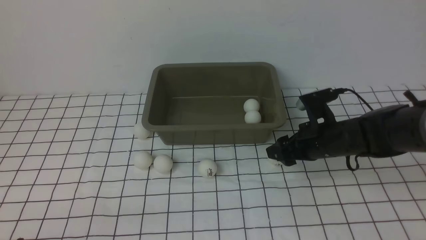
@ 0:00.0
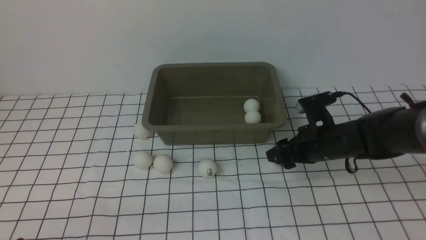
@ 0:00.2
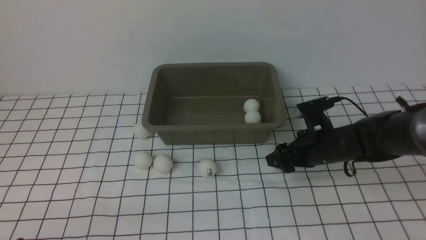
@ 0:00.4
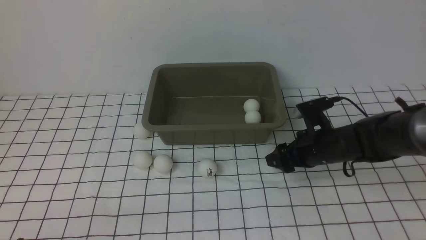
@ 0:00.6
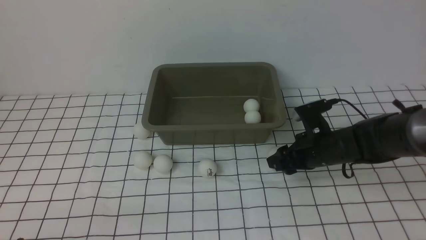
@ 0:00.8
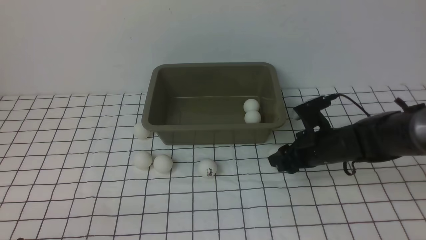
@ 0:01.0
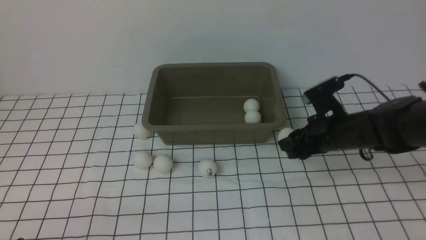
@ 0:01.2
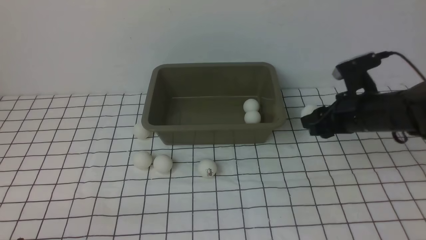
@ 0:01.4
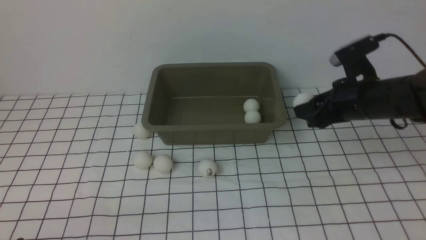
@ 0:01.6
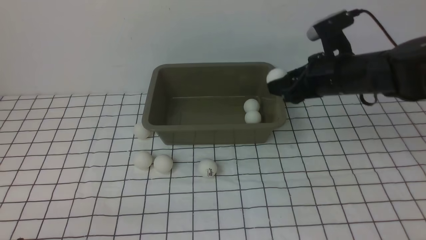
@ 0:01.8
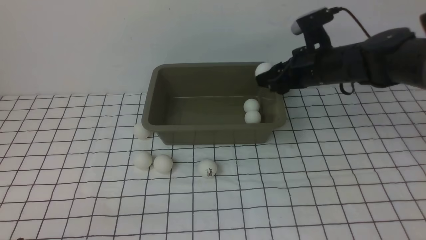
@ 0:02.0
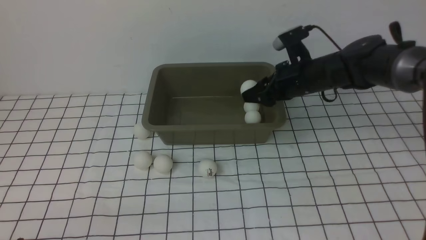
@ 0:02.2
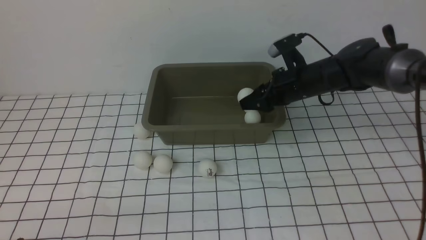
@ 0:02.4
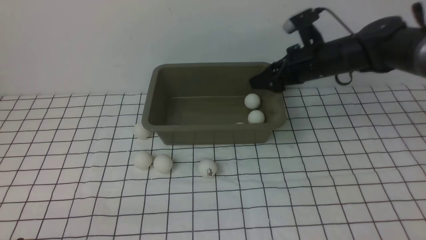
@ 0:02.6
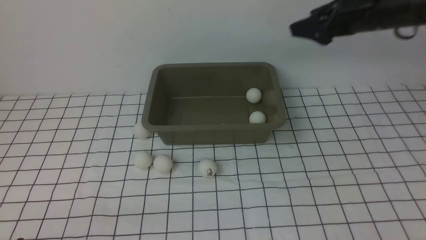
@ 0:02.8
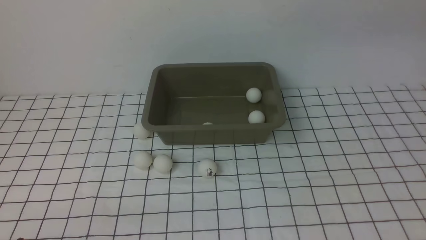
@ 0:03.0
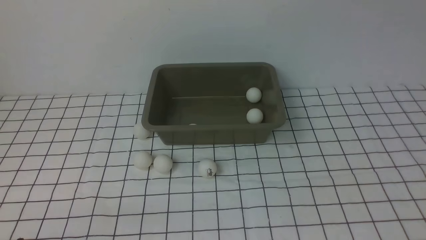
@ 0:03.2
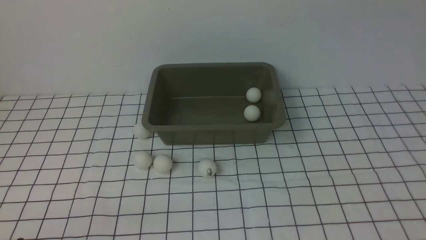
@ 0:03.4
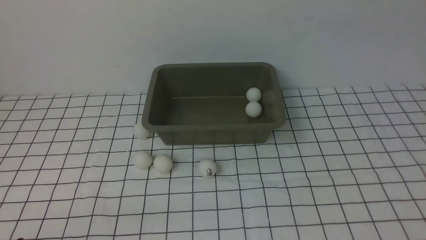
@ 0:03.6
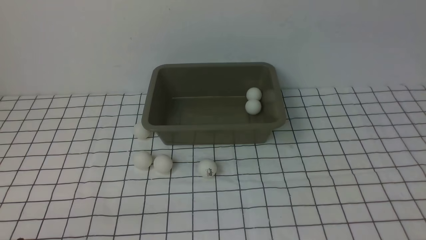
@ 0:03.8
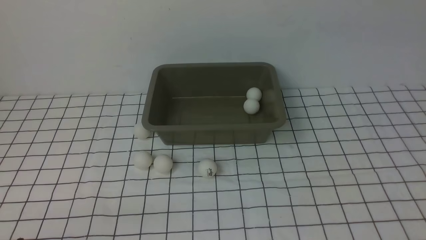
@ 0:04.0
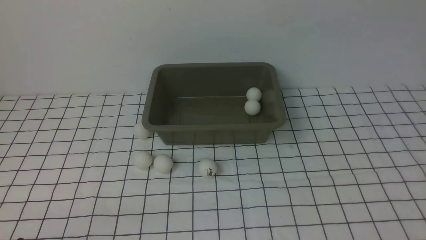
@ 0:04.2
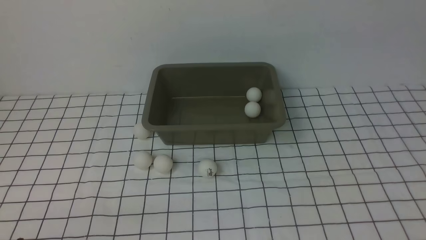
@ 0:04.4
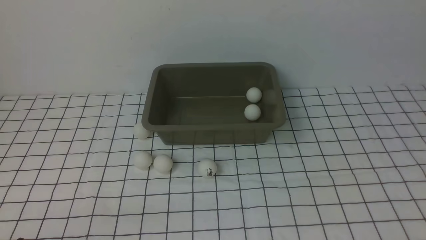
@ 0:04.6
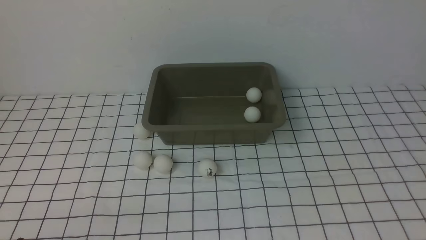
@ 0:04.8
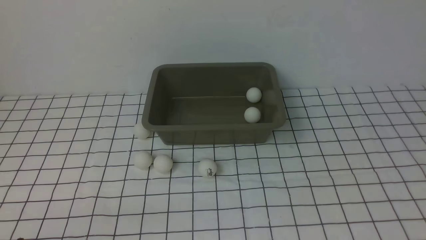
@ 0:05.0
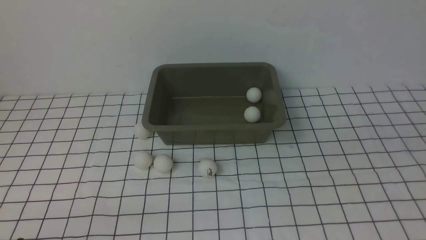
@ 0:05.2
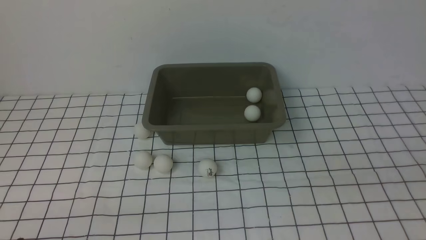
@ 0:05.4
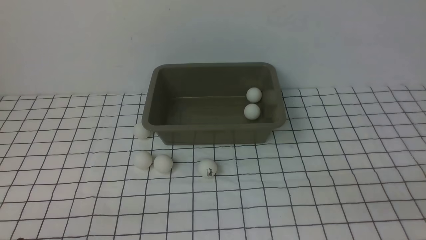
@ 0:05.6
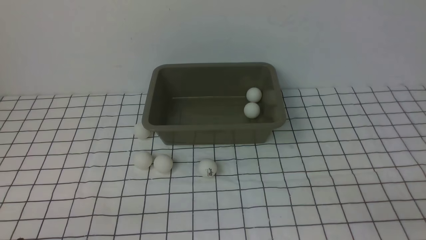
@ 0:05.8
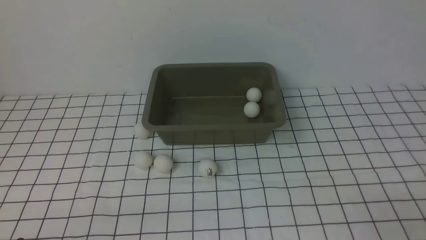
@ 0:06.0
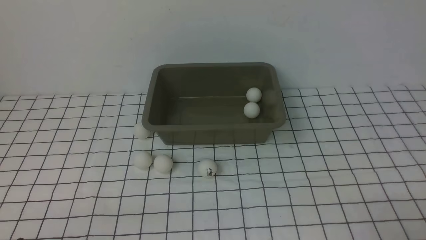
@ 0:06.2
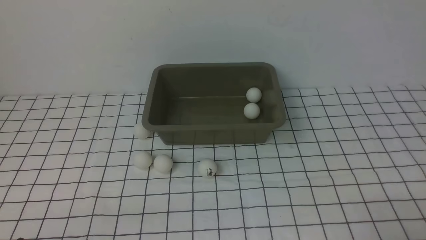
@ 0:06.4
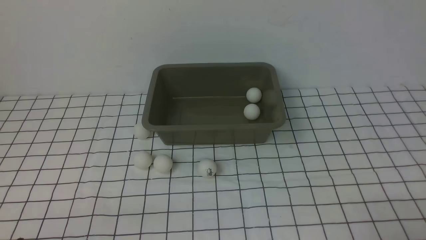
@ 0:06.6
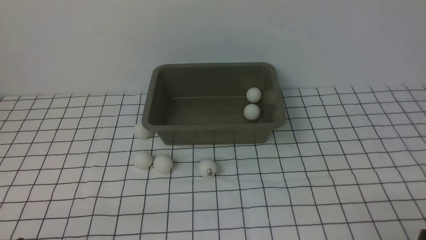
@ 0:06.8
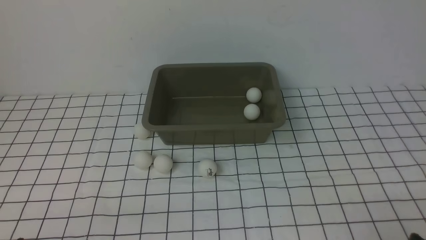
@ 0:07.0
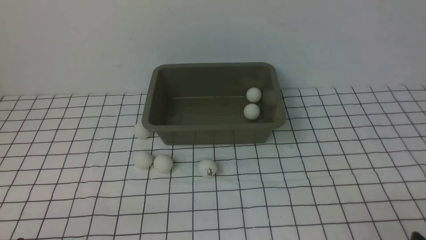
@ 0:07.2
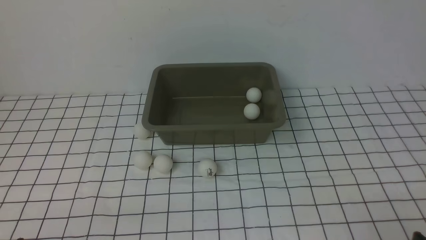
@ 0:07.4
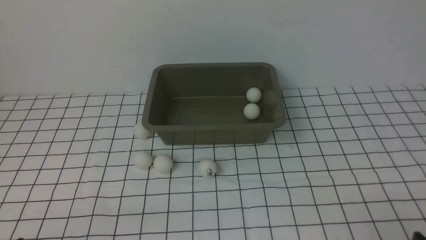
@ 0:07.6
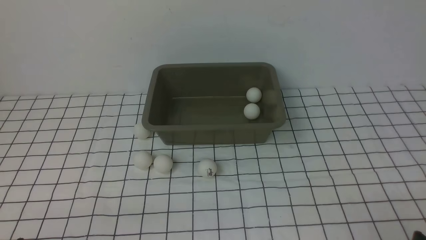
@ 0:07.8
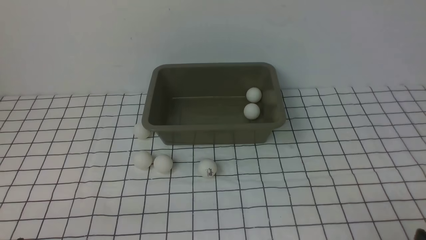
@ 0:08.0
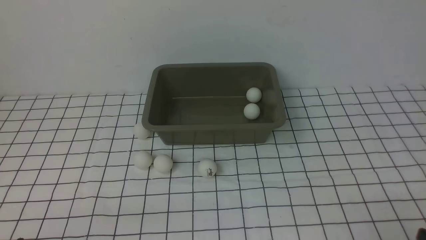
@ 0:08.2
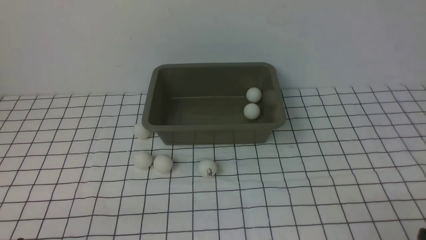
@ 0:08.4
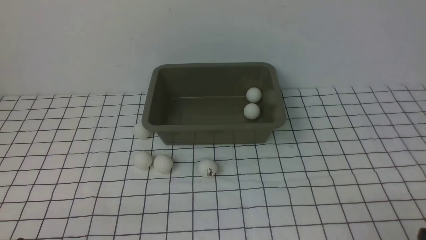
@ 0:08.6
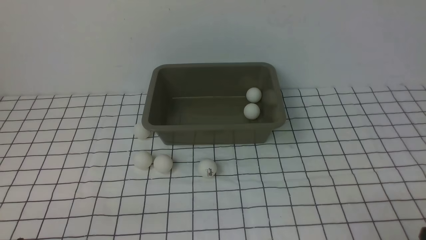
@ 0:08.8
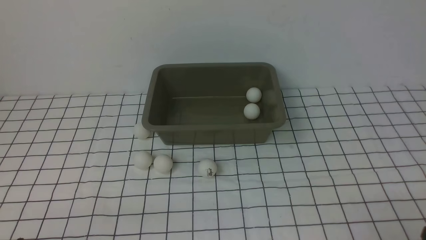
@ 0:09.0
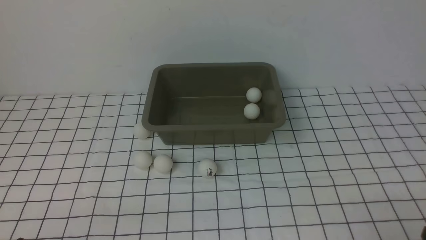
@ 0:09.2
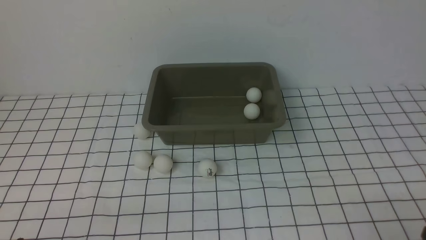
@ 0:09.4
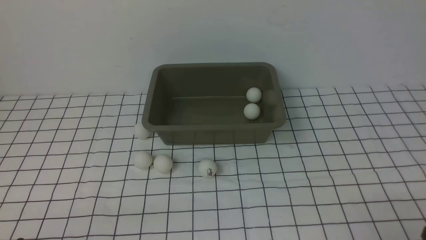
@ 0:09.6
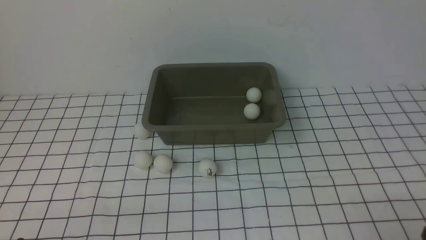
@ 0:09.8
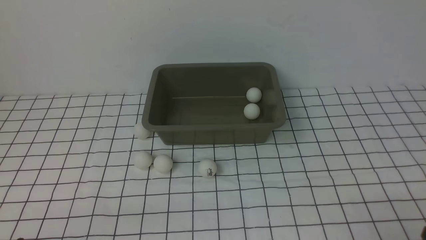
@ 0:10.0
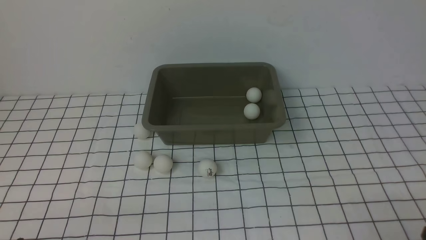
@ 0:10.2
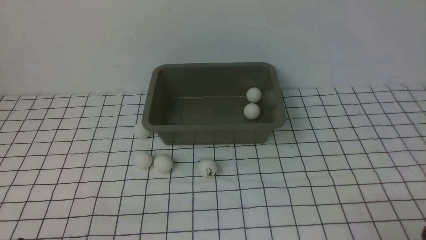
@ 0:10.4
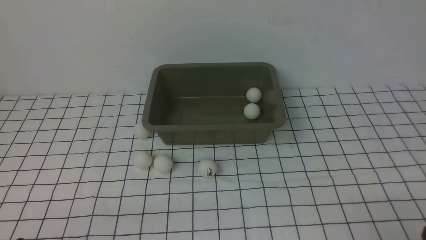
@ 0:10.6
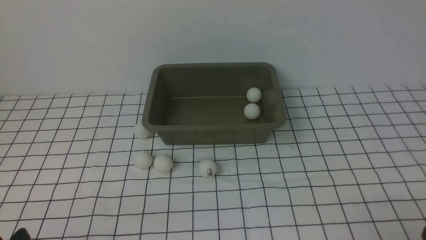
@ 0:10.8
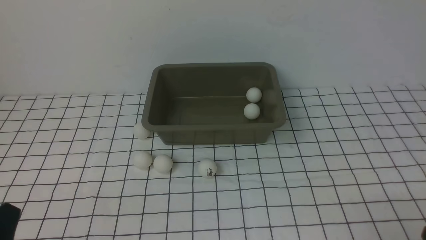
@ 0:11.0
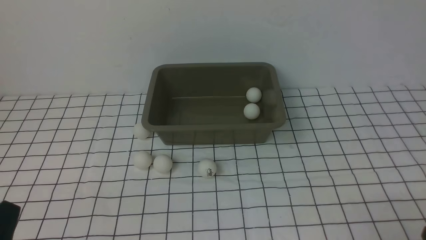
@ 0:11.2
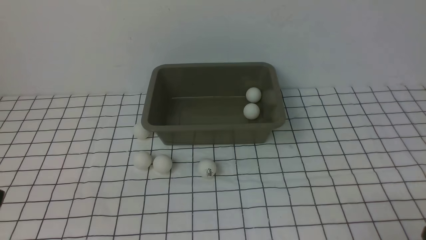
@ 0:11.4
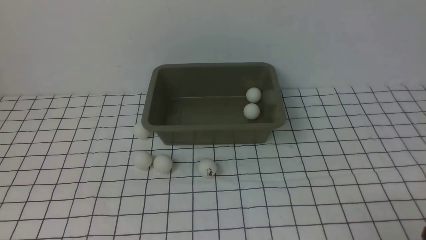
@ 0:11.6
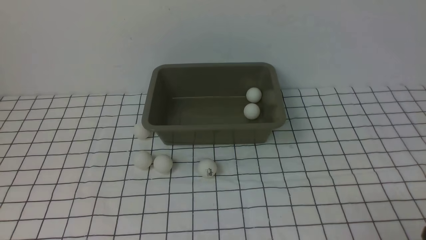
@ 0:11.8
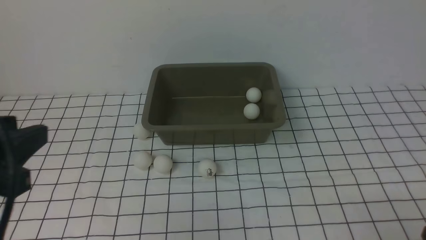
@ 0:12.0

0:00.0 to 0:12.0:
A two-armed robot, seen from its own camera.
Step, 0:01.4 to 0:02.6: use the right arm to put the table tennis ball into the box.
0:00.0 to 0:01.6: The right gripper moves upward, roughly 10 cm, and closes.
0:01.6 to 0:03.0: The right gripper heads upward and to the right, covering some 20 cm, and opens.
0:09.0 to 0:10.4: Neither gripper changes place.
0:10.4 to 0:12.0: The left gripper heads upward, covering roughly 20 cm.

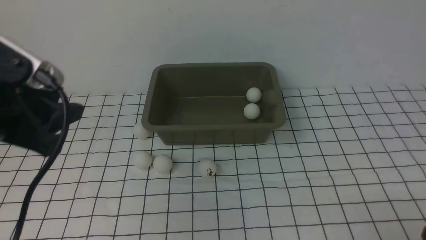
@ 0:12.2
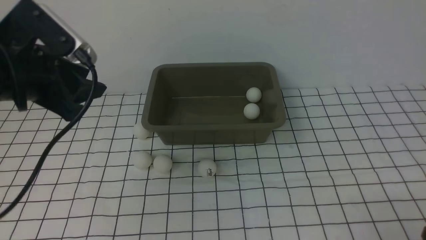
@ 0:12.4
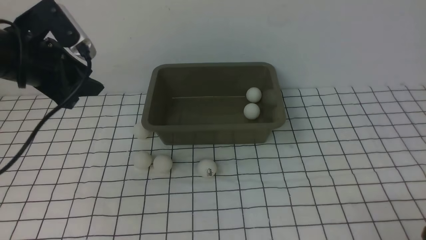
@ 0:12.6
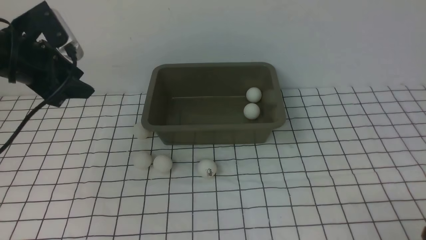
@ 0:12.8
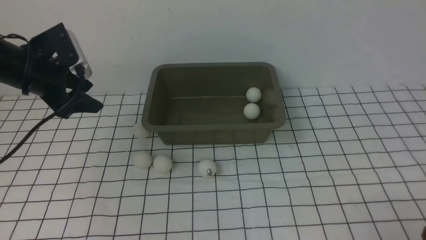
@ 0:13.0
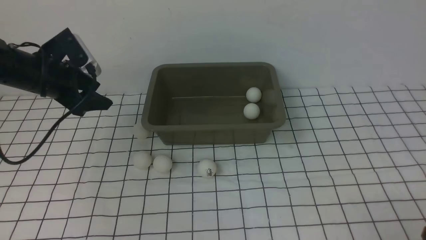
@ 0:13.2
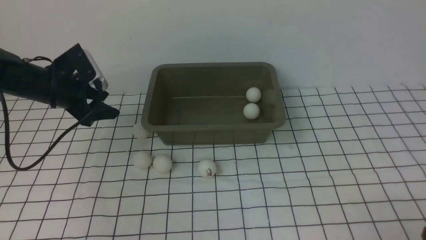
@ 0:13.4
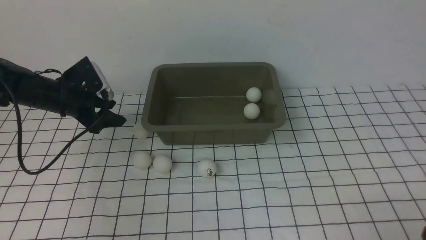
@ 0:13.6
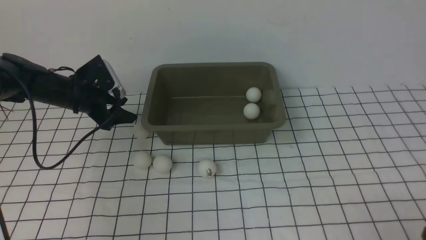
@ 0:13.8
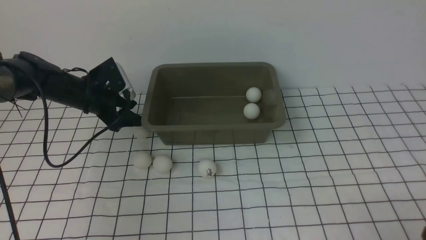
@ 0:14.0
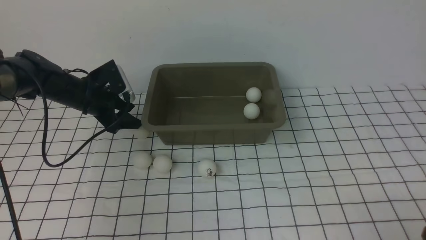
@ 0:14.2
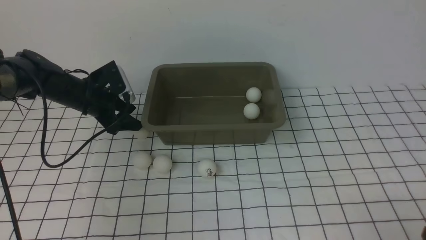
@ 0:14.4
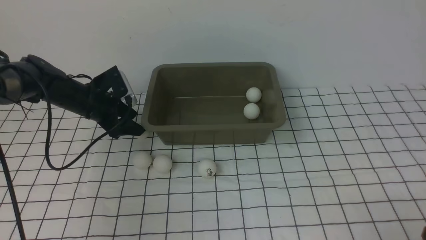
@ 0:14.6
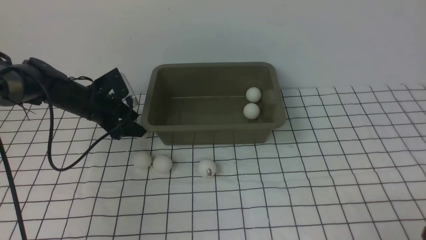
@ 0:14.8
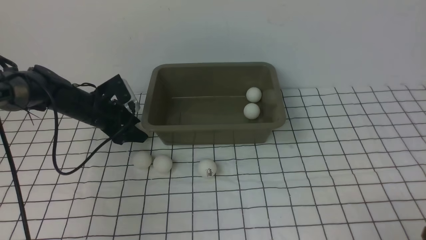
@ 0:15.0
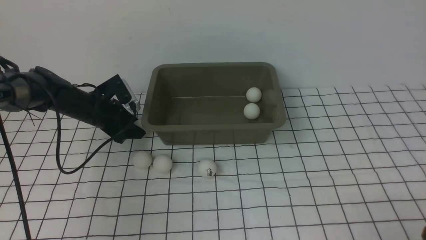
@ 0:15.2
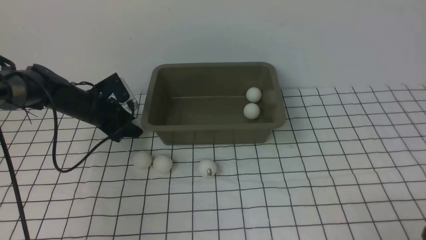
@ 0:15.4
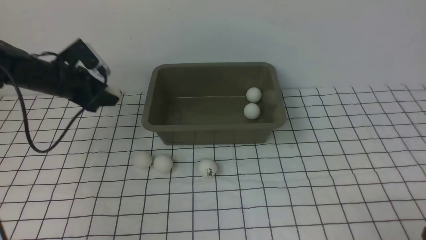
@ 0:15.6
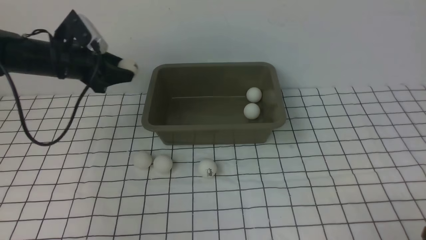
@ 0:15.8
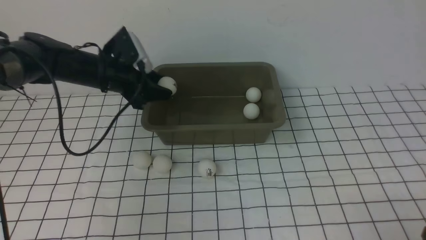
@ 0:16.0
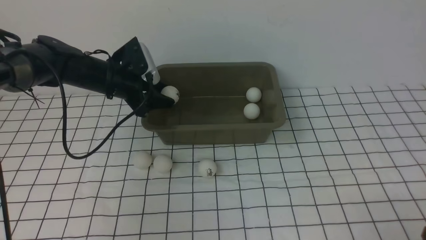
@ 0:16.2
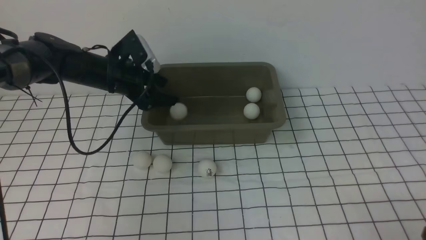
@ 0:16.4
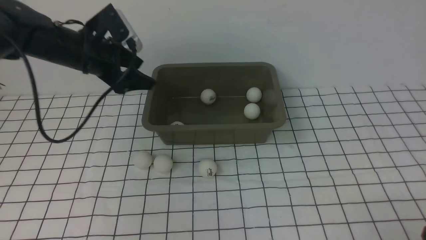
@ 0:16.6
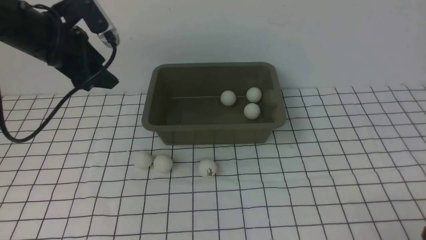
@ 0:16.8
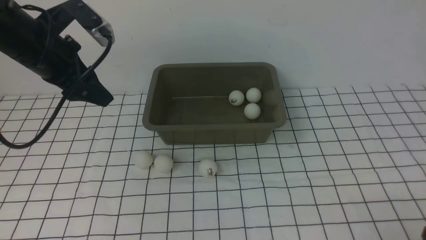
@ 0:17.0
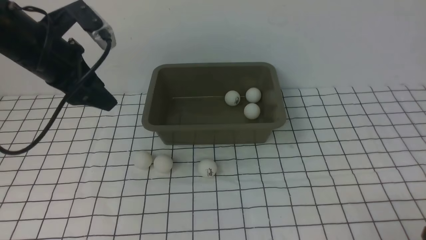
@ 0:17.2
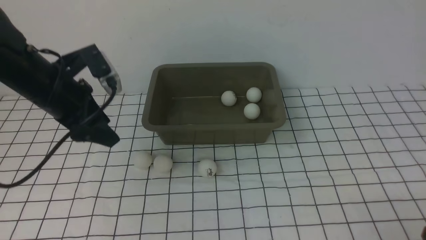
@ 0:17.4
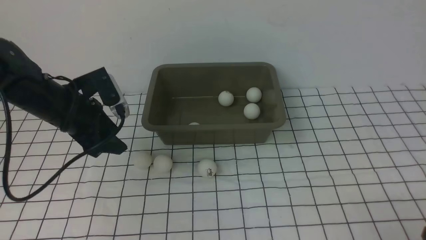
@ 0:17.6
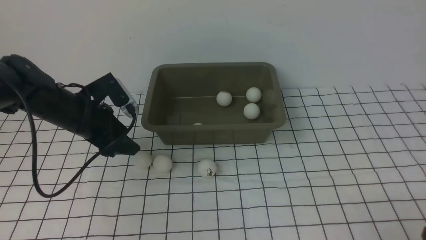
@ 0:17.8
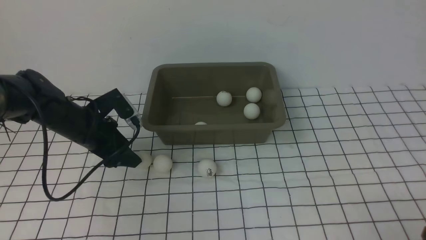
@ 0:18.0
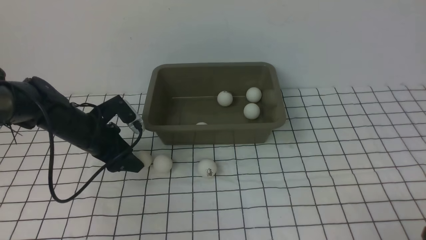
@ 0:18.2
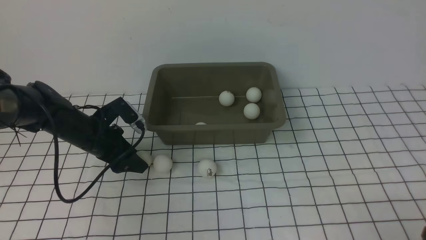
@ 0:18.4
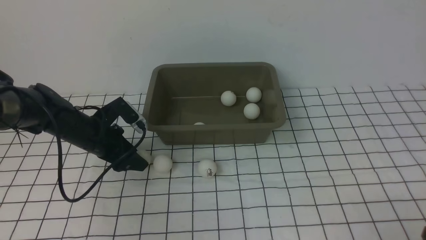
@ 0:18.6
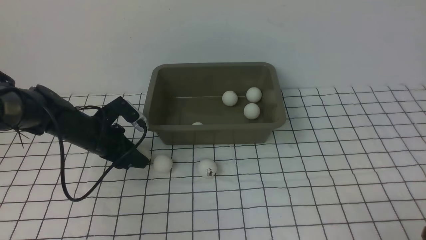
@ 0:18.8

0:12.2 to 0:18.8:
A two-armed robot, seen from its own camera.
Step, 0:12.2 to 0:15.6: use the left arm to clamp the table tennis ball closest to it.
Step, 0:15.8 to 0:16.4: use the left arm to put the table tennis ball into the box.
0:12.2 to 0:13.8: The left gripper moves forward and downward, approximately 30 cm, and opens its fingers.
0:13.8 to 0:15.4: The left gripper closes.
0:15.4 to 0:17.2: The left gripper goes approximately 20 cm upward and backward, and opens its fingers.
0:17.2 to 0:18.8: The left gripper goes roughly 15 cm downward, and closes up.
